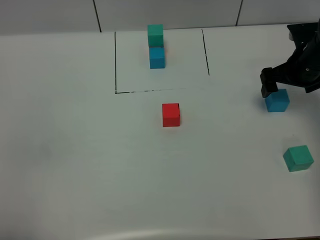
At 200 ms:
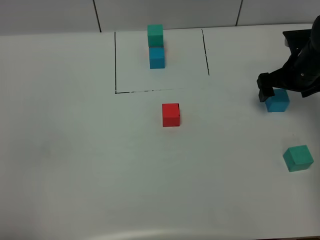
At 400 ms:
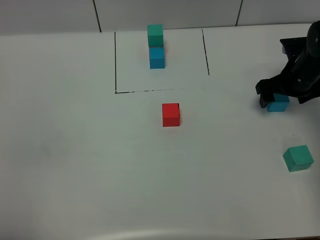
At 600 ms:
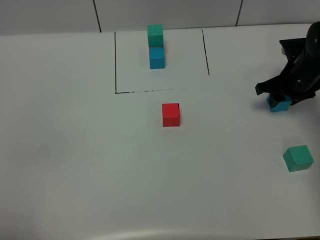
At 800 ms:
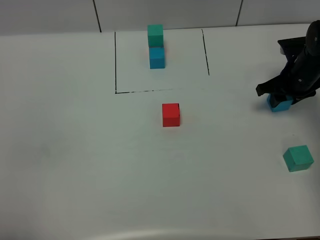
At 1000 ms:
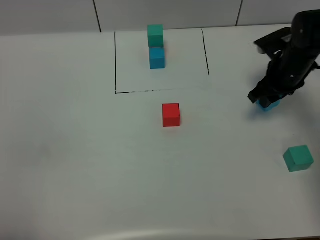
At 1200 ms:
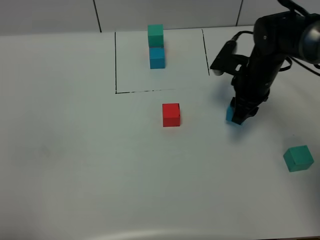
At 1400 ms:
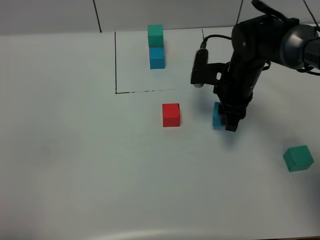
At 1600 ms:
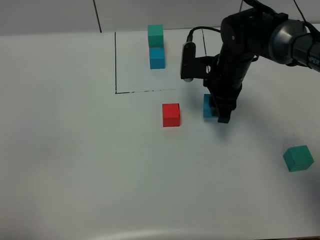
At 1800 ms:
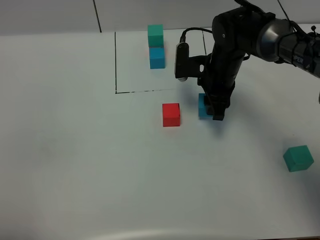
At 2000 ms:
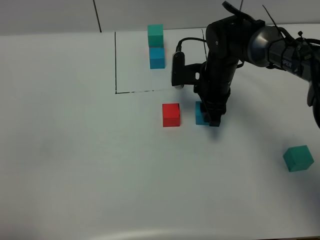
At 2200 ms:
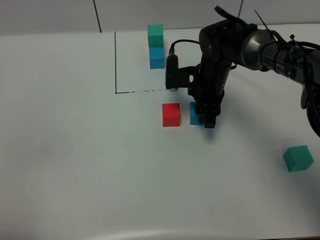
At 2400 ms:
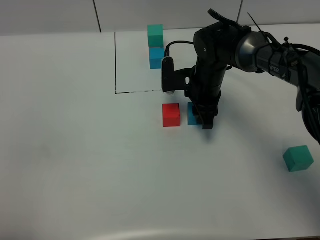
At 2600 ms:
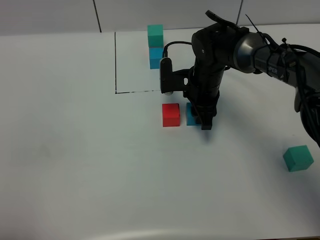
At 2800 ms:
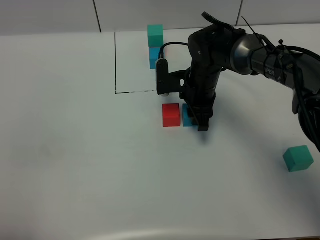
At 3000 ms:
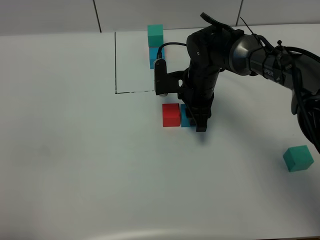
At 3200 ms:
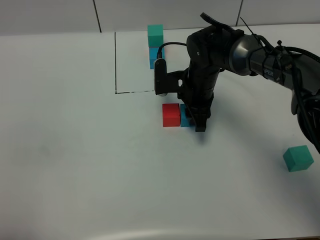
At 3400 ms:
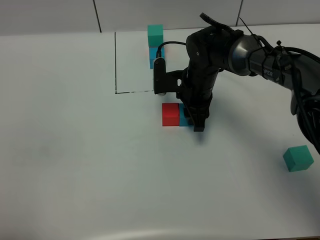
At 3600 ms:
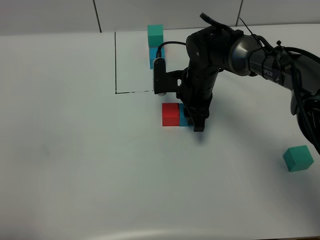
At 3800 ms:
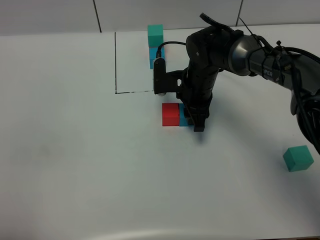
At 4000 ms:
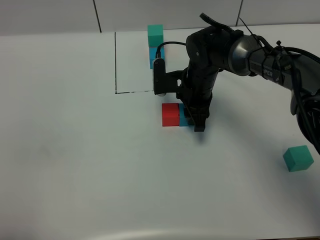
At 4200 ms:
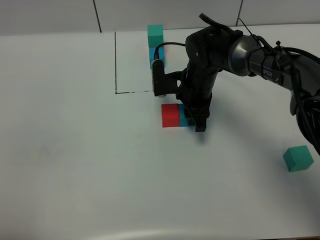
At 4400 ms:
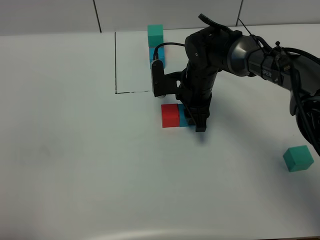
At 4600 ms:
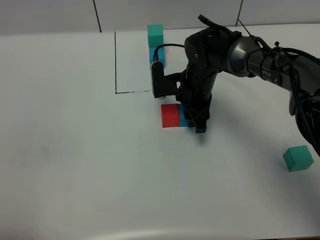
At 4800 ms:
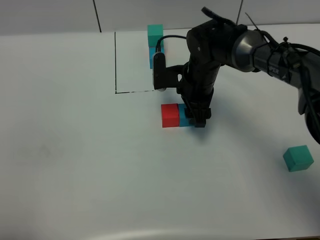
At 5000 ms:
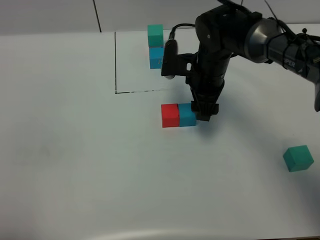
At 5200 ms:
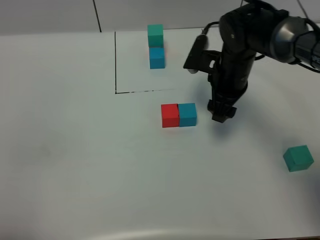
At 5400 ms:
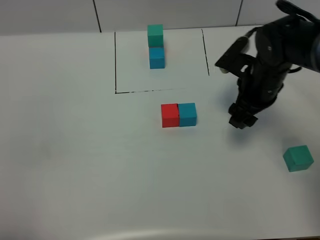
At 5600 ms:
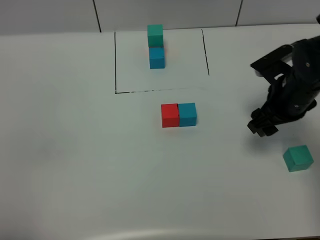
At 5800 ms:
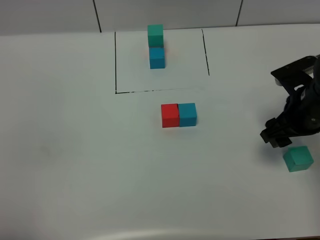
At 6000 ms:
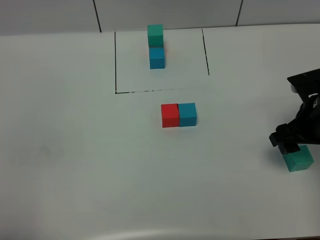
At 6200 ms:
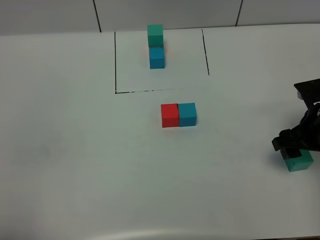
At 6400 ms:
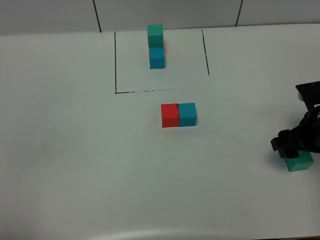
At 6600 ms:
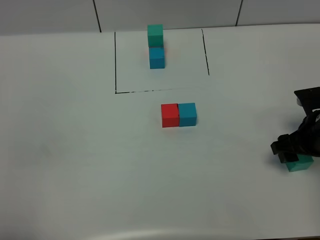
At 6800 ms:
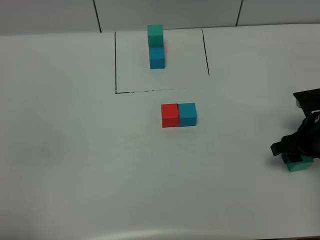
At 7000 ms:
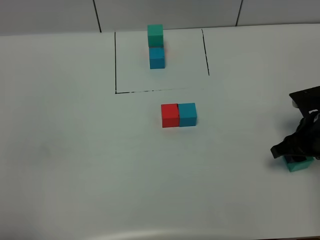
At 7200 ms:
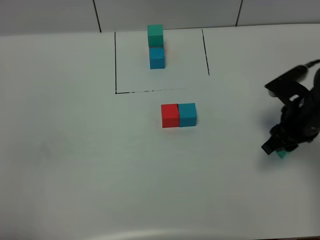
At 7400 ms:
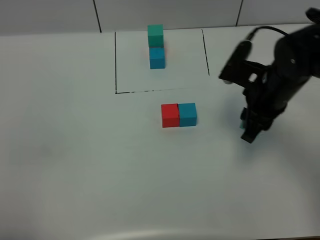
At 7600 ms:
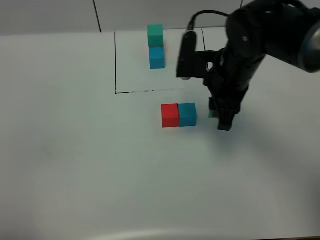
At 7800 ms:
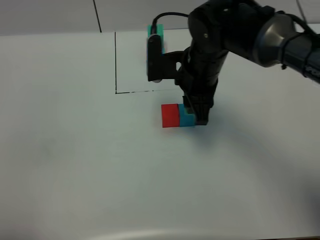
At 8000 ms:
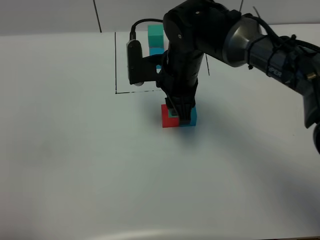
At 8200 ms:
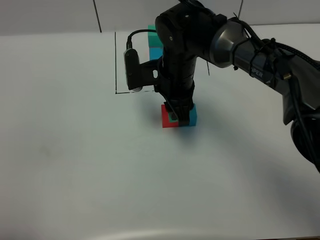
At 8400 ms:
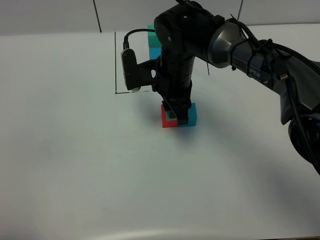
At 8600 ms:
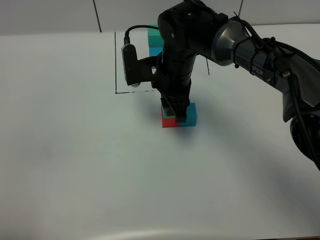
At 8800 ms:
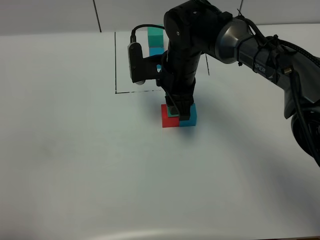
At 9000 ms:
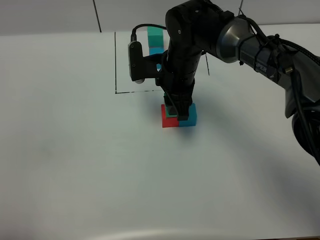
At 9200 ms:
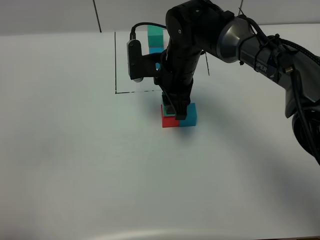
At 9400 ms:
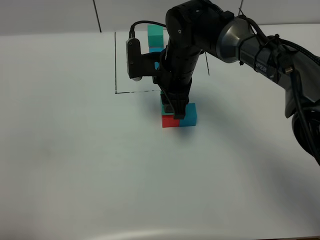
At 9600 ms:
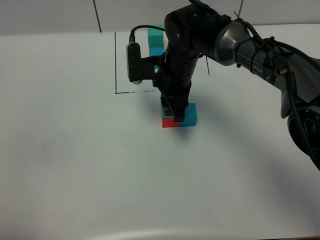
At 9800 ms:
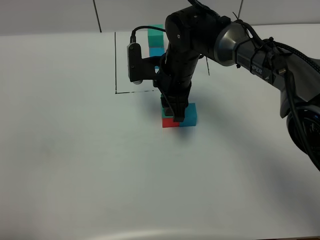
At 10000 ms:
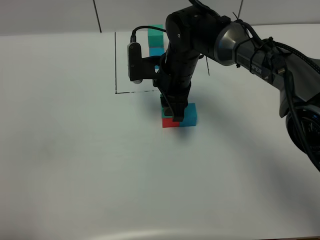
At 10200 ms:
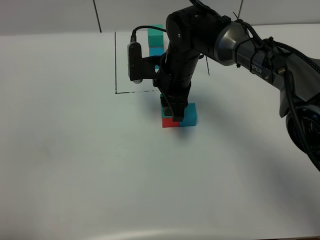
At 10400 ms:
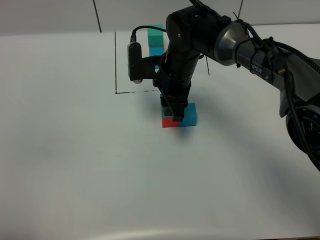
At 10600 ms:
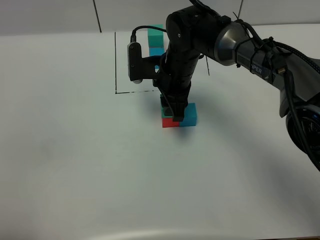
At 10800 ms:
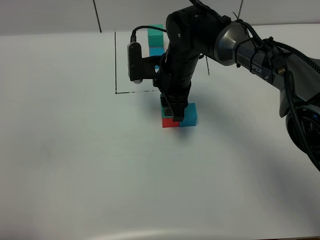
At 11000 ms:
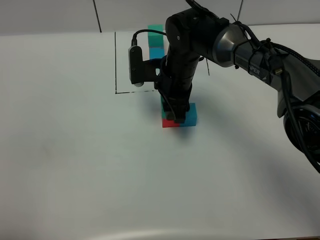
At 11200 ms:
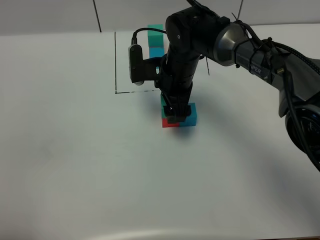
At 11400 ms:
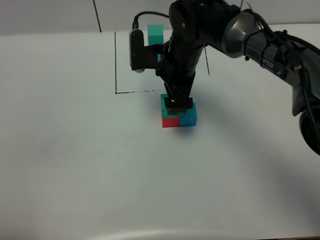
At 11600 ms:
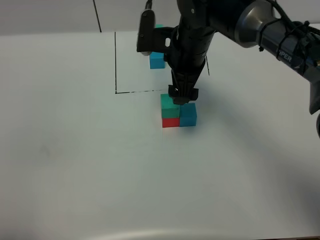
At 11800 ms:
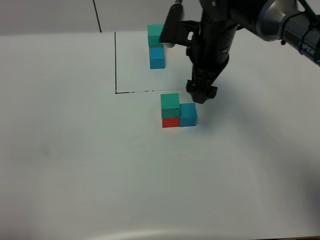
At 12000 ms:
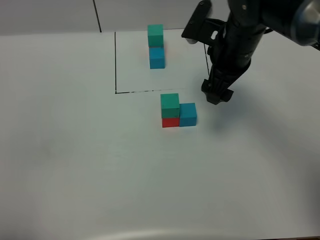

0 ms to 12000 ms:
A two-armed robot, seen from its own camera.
Task of the whole recording: According to the building block template in front, assemble the scattered blocks together.
Step, 0 ms to 5200 ms: Put the blue cube on the right of the red cube.
Step, 5400 ms to 11800 ms: Put the green cube on the red cube.
0 ms to 1600 ms: The right gripper shifts some 15 cm to the left, and closes up.
1600 ms to 3000 ms: The right gripper ends up some 5 cm from where it was.
3000 ms to 4400 ms: Both grippers stay put.
4400 ms to 6000 ms: The right gripper goes roughly 25 cm to the right and backward, and opens its fingers.
6000 ms to 7600 ms: The right gripper moves to the left, about 15 cm, and closes up.
7600 ms to 9000 ms: The right gripper shifts some 10 cm to the left and forward.
9000 ms to 10400 ms: The grippers make only small movements.
10400 ms to 12000 ms: The right gripper heads to the right and upward, covering approximately 15 cm, and opens its fingers.

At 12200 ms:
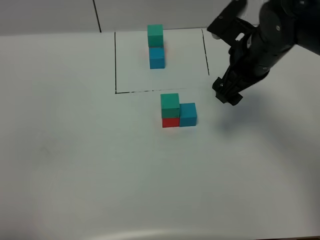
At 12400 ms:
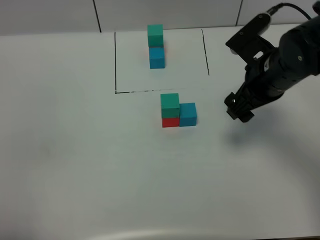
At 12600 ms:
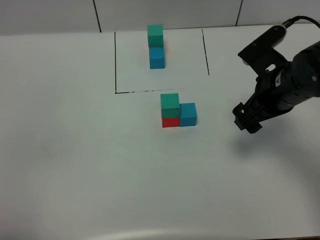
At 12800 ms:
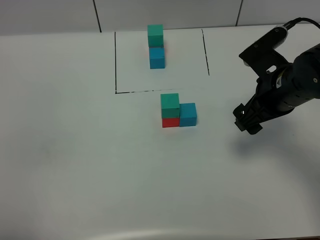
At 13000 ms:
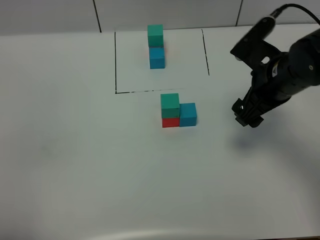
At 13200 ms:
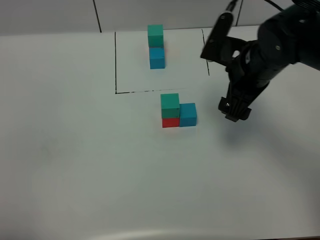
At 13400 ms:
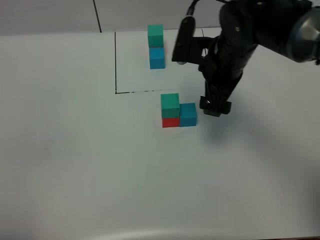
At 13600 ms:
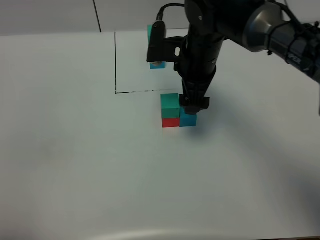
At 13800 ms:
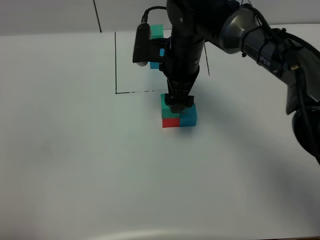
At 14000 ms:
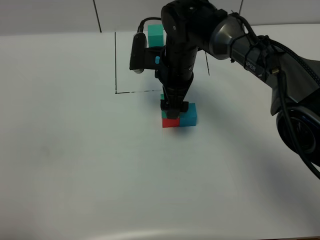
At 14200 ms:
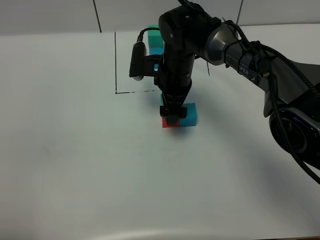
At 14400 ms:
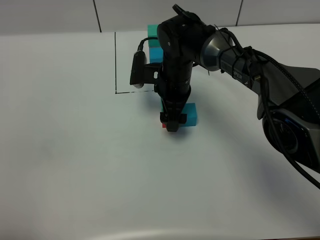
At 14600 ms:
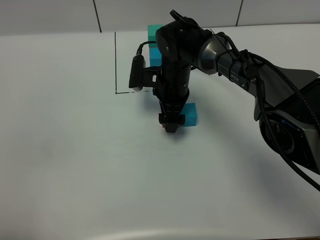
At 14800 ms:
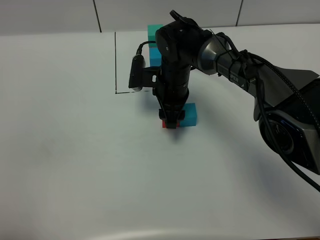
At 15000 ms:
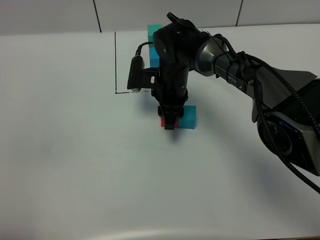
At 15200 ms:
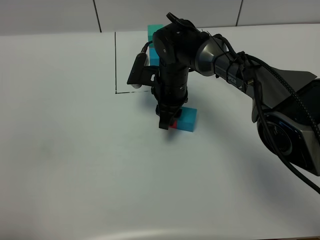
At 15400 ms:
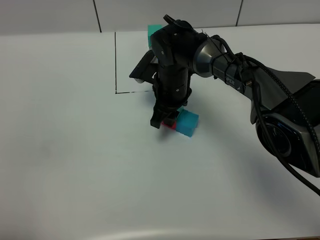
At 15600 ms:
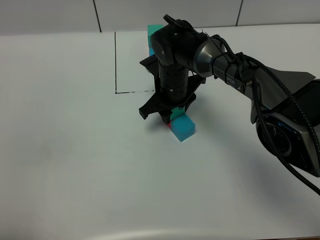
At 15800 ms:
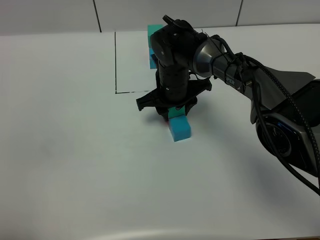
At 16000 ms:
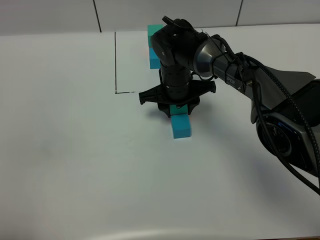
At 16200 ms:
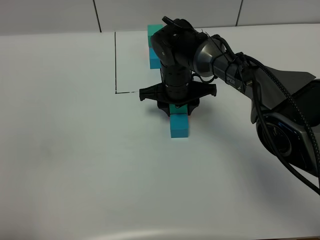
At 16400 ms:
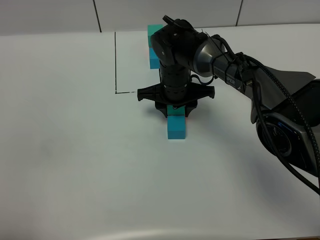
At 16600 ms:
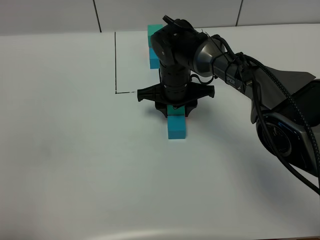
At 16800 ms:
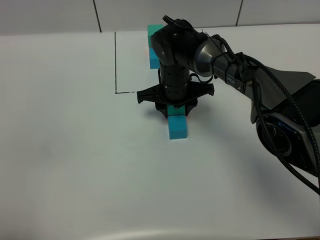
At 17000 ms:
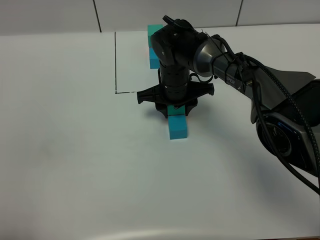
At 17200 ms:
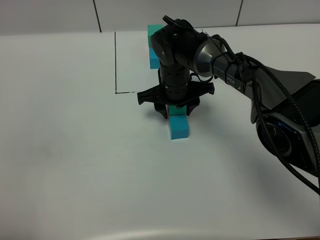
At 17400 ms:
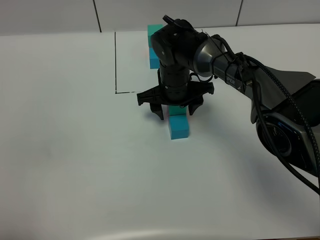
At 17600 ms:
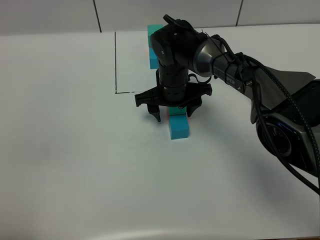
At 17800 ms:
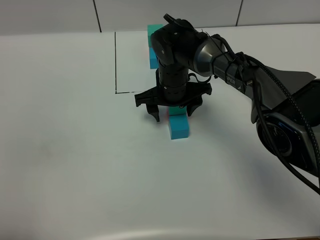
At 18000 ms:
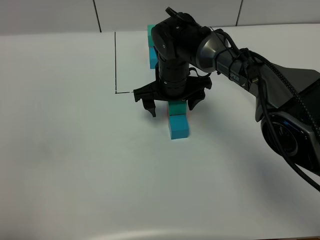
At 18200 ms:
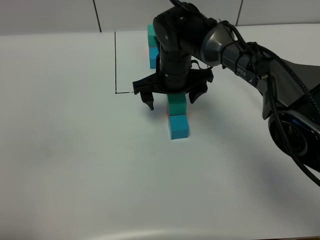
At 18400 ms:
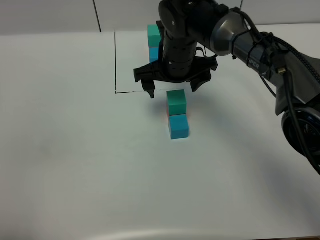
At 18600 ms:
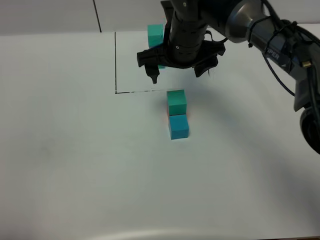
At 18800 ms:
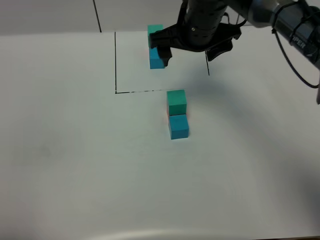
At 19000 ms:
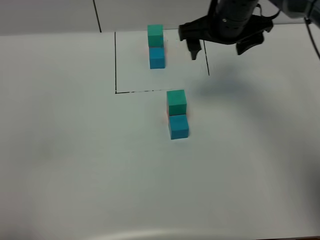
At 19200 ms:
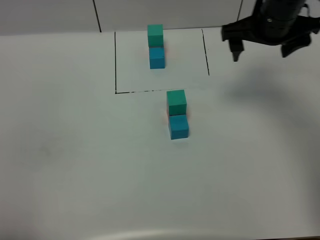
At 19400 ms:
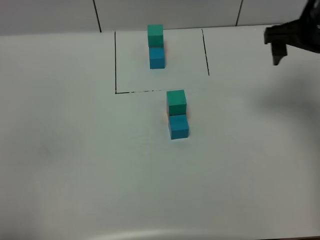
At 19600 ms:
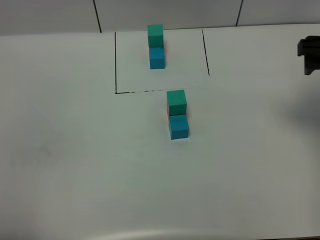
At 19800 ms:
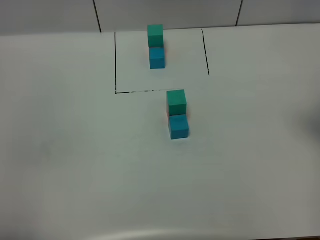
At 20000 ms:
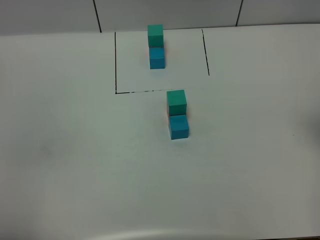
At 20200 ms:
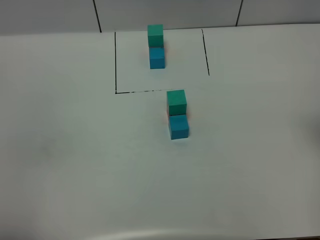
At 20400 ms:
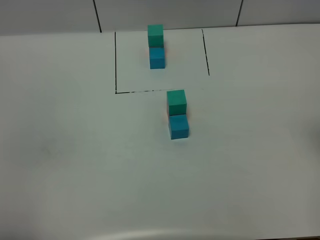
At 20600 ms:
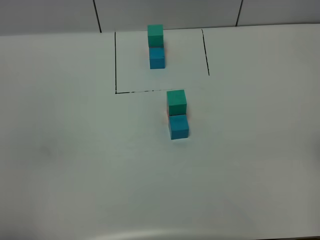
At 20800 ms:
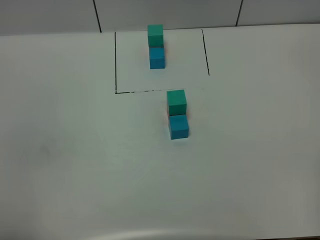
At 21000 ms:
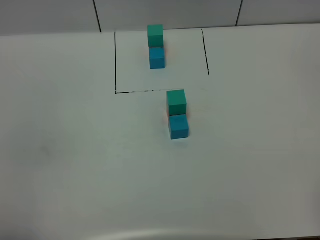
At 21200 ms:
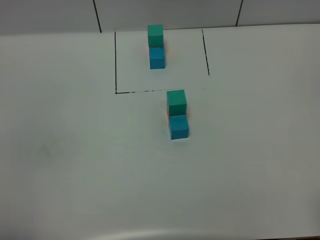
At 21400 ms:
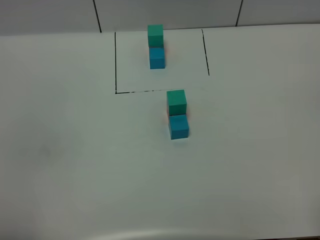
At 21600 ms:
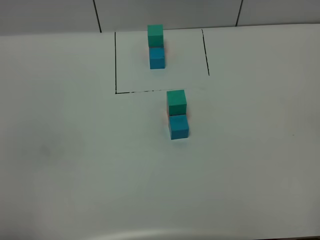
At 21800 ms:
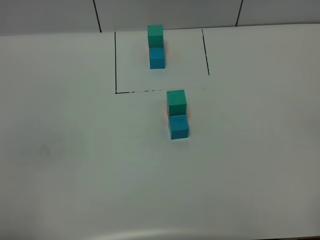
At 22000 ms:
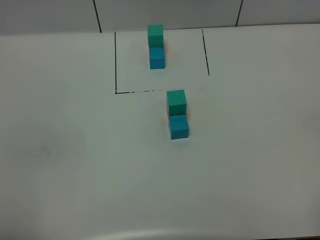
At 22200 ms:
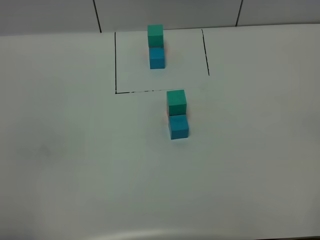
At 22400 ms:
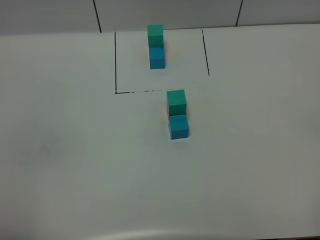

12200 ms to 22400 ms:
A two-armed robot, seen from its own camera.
Task of the whole recording: According to the building block template in front, assemble the scattered blocks together.
Step, 12200 ms to 18400 ms: Adjust the pose of the building blocks.
12200 ms to 13600 ms: The right gripper moves to the left, some 10 cm.
13600 ms to 15200 ms: The right gripper moves downward, roughly 10 cm, and closes its fingers.
16600 ms to 18000 ms: The right gripper opens its fingers.
18000 ms to 19400 ms: The right gripper heads to the right and upward, covering about 30 cm.
19400 ms to 21000 ms: The right gripper goes about 30 cm backward.
